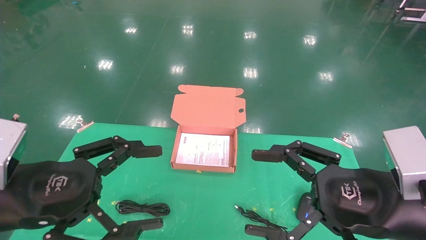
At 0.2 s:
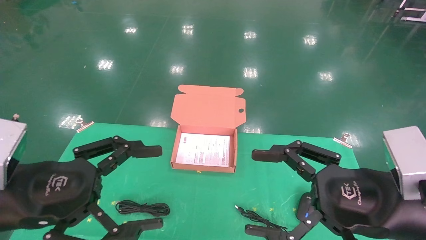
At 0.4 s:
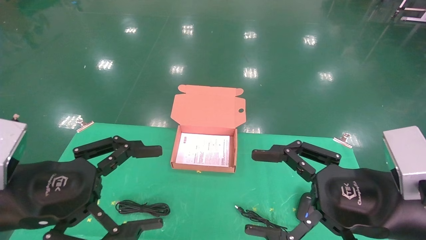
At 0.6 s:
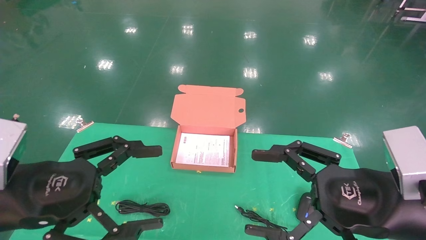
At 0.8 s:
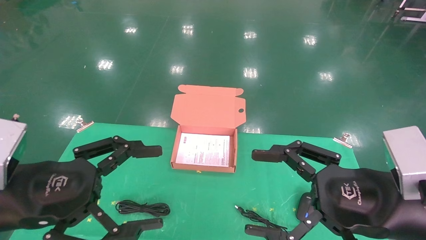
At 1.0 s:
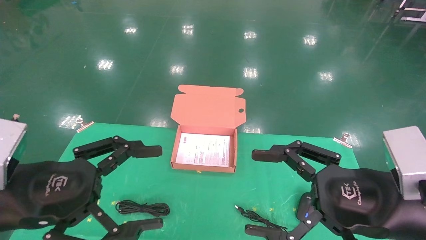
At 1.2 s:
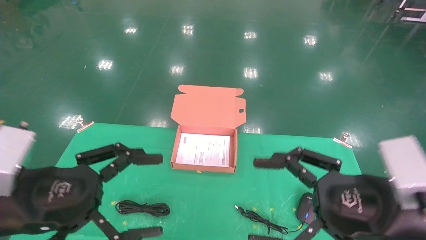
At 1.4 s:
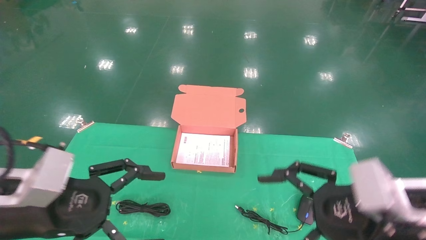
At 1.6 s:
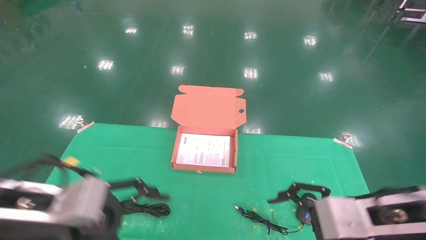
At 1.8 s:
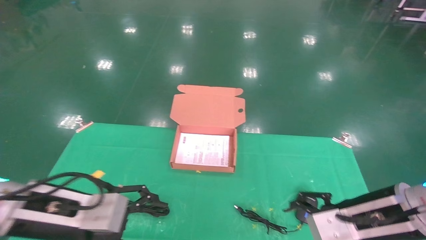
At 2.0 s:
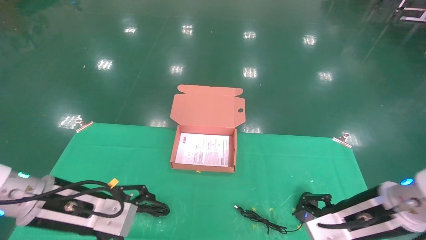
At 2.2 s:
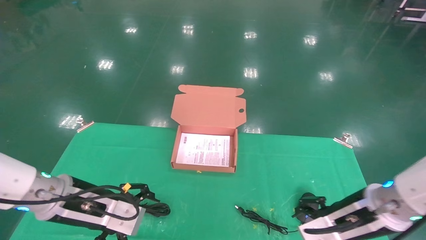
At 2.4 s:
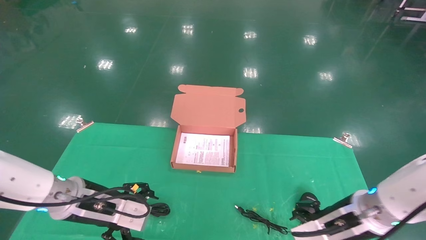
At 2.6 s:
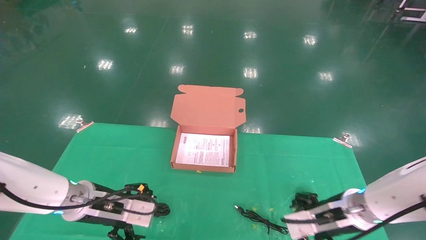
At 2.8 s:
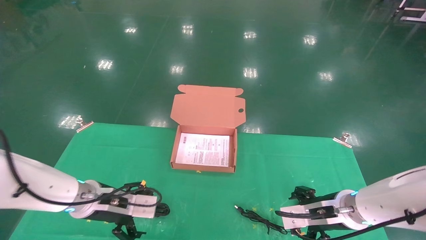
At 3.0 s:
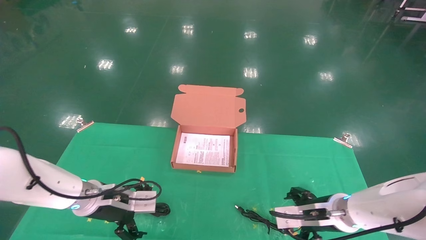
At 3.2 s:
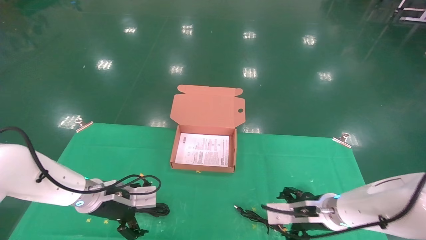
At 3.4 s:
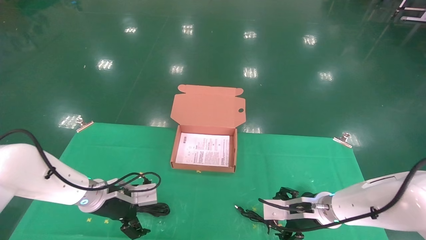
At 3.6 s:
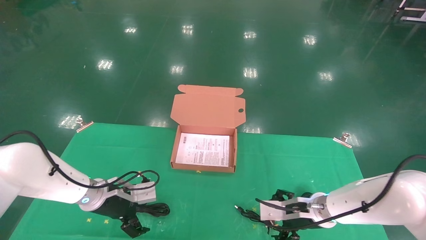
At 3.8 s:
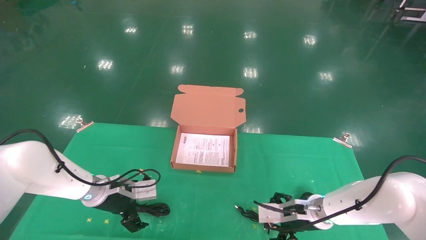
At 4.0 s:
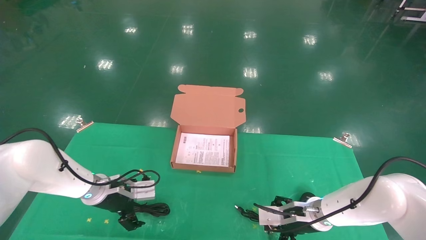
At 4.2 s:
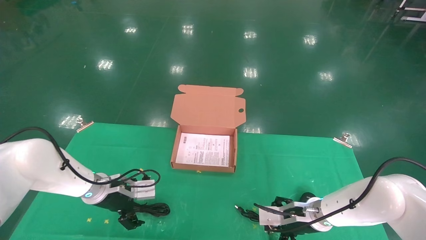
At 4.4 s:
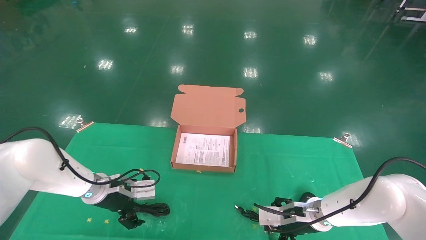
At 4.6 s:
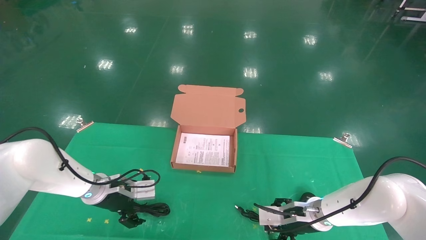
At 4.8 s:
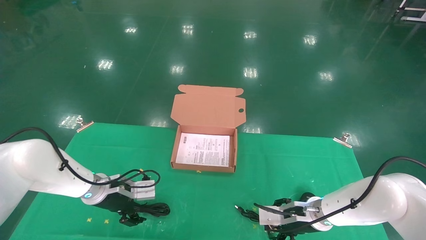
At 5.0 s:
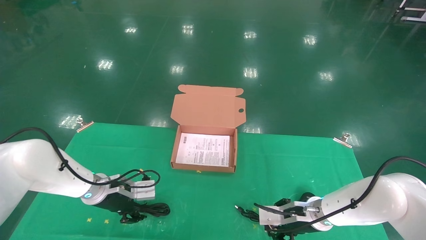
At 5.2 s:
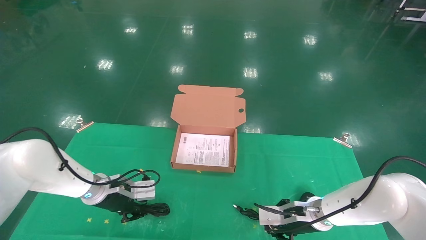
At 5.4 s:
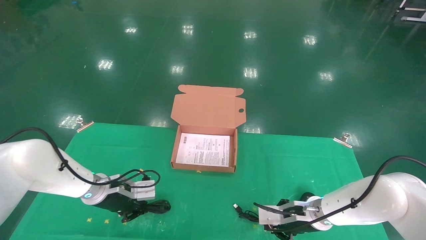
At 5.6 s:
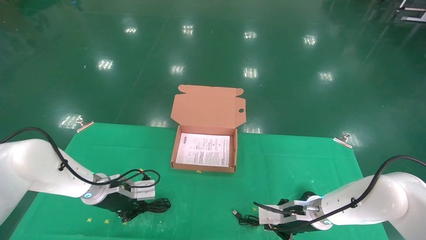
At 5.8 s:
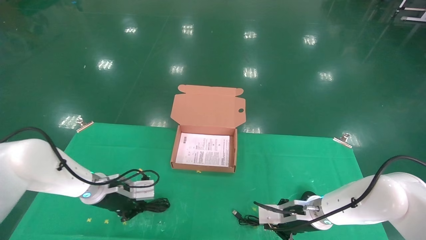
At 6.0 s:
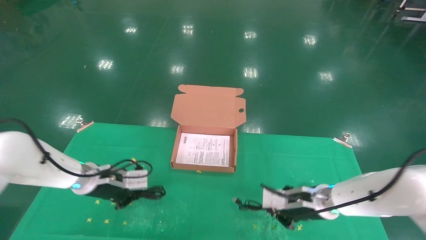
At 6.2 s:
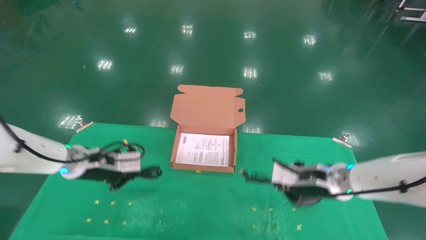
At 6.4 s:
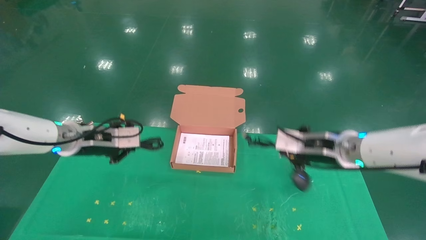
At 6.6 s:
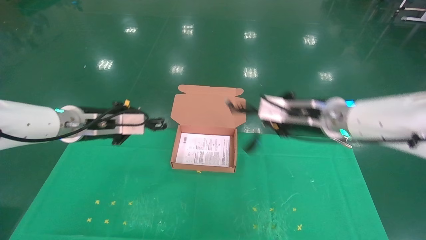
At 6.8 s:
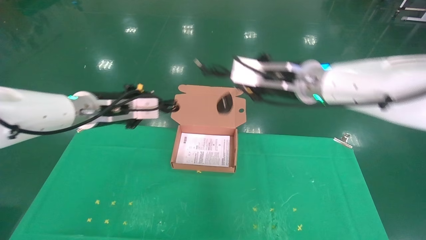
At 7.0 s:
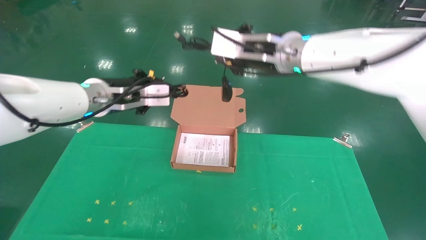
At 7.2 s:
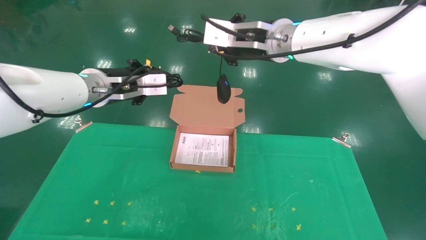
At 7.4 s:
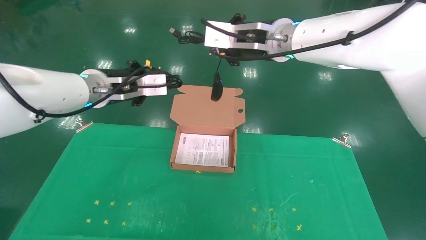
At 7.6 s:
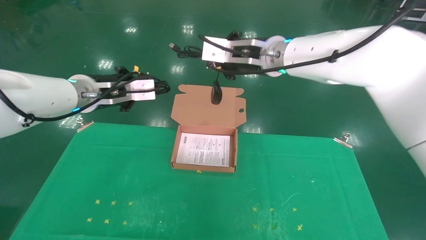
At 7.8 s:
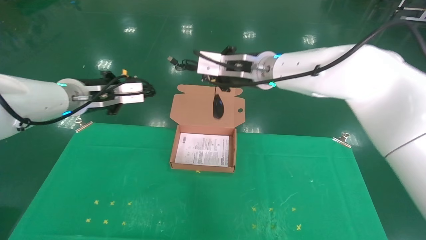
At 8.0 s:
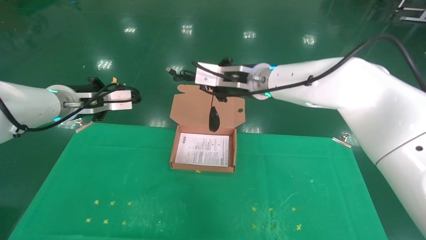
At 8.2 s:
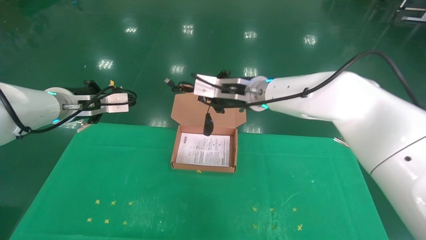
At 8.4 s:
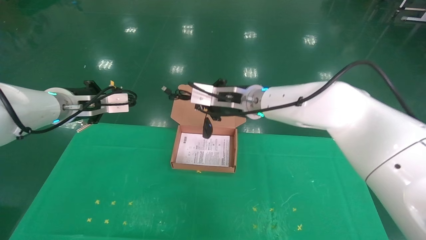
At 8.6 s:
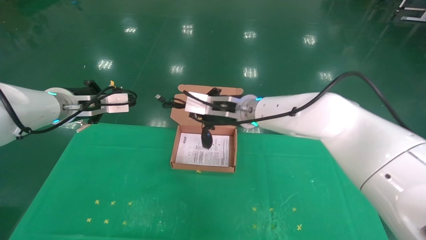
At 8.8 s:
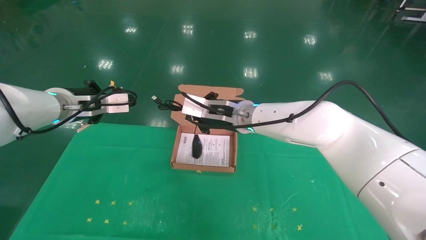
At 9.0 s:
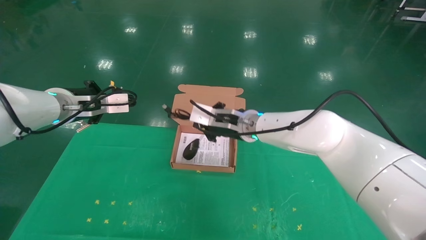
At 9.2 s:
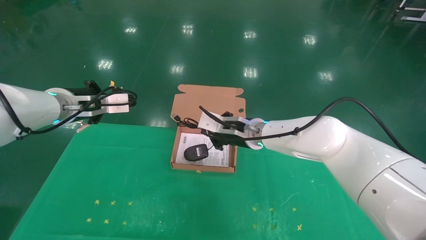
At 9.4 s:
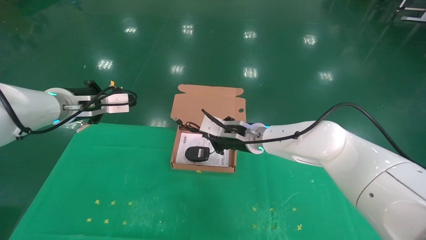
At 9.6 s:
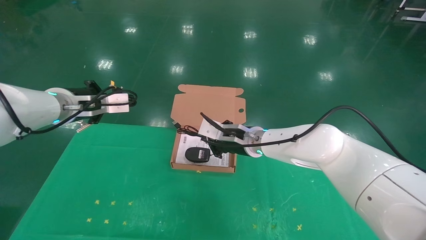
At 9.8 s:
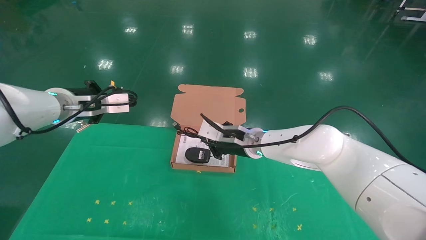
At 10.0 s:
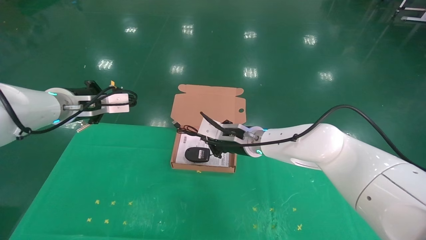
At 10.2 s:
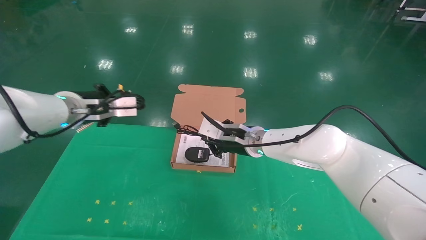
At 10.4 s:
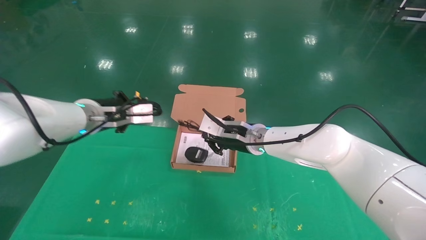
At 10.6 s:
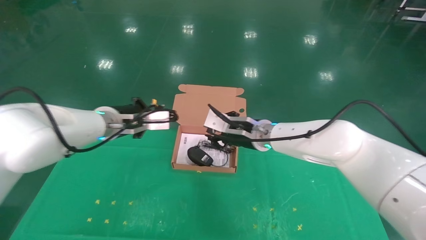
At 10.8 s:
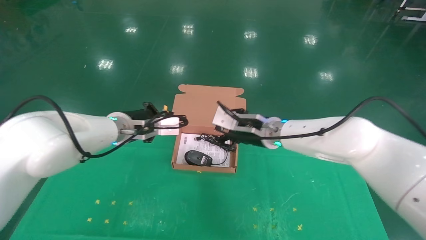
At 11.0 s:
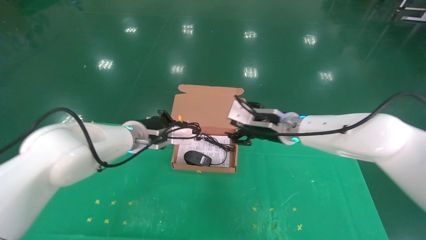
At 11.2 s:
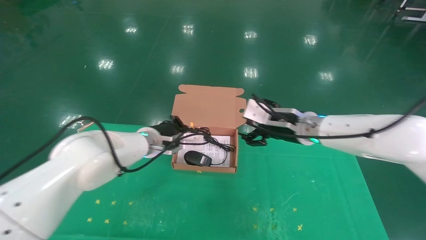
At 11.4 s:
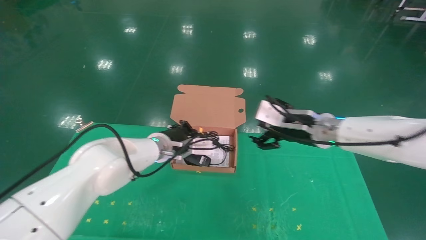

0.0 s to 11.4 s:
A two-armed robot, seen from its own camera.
Task of the whole recording: grasp data cable left put into box grasp mouse right put into box.
Step, 1.4 to 5.6 s: Grab and pick up both the mouse and power cord from the accessory packaging area at the same time.
1.4 to 2.8 s: Both grippers move forward and downward, approximately 15 cm.
2.8 to 4.2 s: The left gripper moves forward, roughly 10 cm. The right gripper heads downward and forward, covering some 10 cm.
4.2 to 5.6 s: The right gripper closes its fingers. Meanwhile the left gripper closes its fingers.
5.6 to 7.2 s: The right gripper travels upward by roughly 35 cm. Meanwhile the left gripper moves upward, about 25 cm.
7.2 to 8.6 s: The right gripper heads downward, covering some 15 cm. The left gripper shifts some 10 cm to the left.
8.6 to 10.0 s: The right gripper shifts roughly 10 cm downward.
10.0 to 11.4 s: The right gripper moves to the right and backward, roughly 15 cm, and opens its fingers. The left gripper shifts about 20 cm to the right and downward.

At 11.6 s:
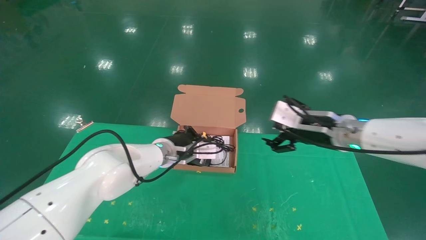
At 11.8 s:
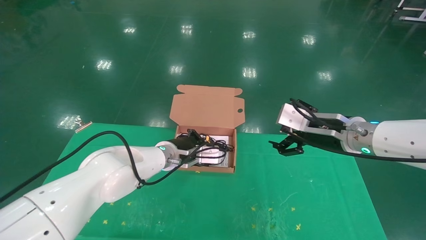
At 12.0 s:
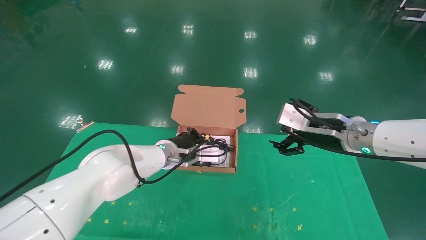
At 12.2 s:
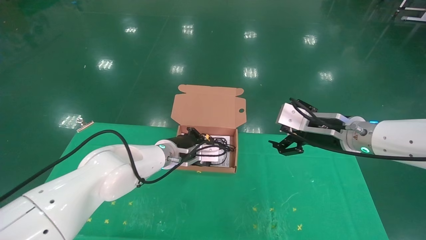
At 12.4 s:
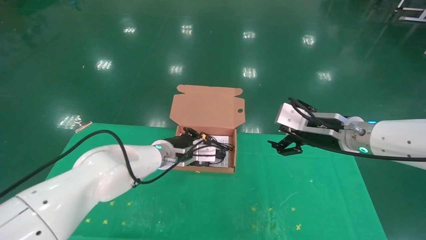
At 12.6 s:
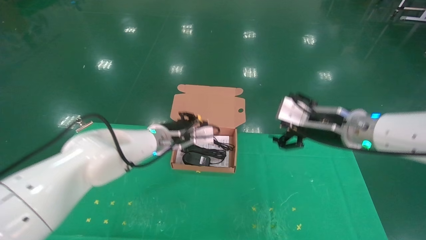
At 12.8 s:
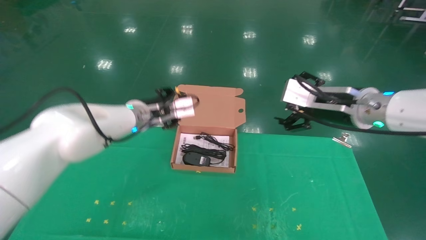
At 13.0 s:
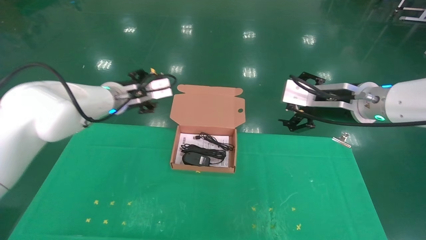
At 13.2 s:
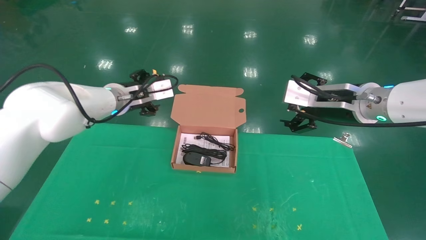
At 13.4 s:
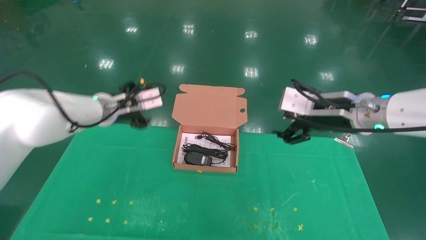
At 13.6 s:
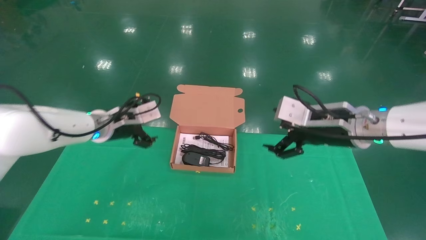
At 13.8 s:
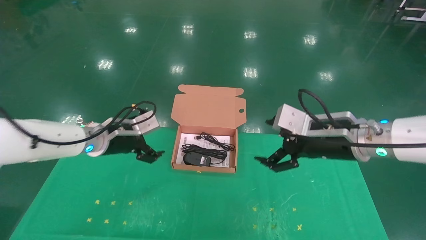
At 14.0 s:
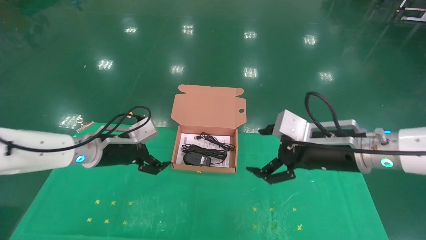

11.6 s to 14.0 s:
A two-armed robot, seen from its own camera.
Task of the whole recording: grasp data cable left put into box grasp mouse right put into box.
11.6 to 12.8 s: The left gripper moves upward and to the left, about 10 cm, and opens, while the right gripper moves upward, about 5 cm.
12.8 to 14.0 s: The left gripper heads to the left, backward and downward, covering approximately 10 cm, and opens, while the right gripper goes some 5 cm downward.

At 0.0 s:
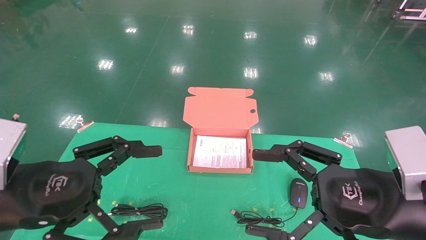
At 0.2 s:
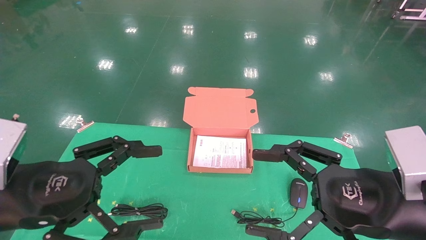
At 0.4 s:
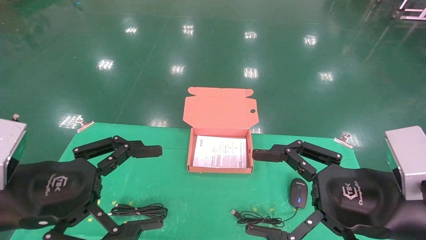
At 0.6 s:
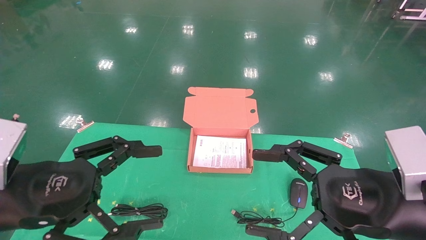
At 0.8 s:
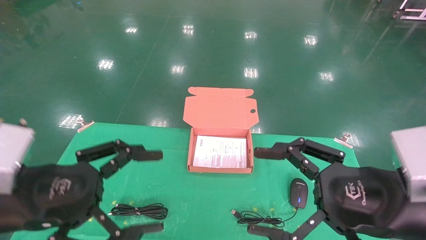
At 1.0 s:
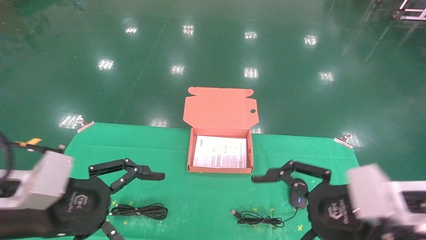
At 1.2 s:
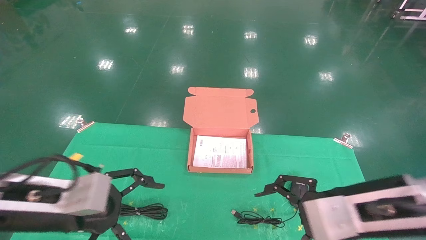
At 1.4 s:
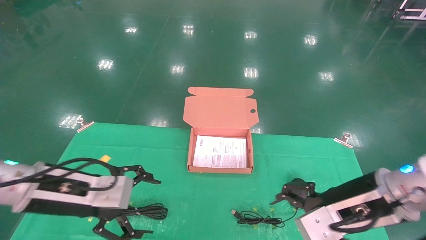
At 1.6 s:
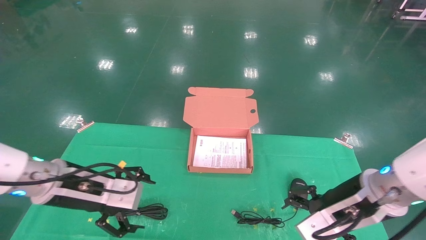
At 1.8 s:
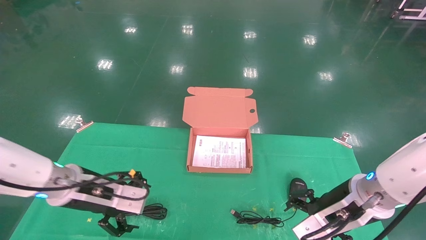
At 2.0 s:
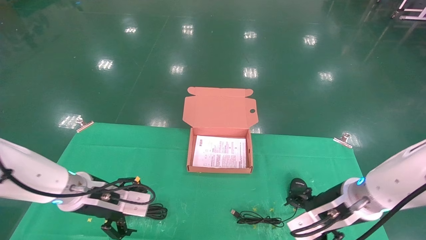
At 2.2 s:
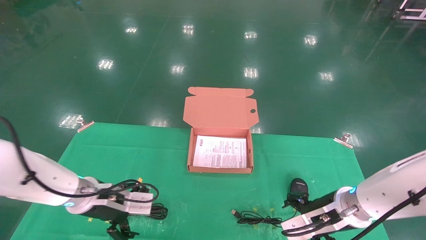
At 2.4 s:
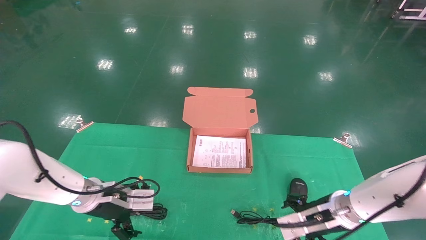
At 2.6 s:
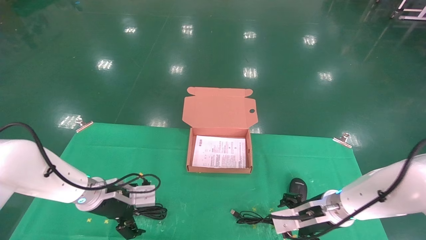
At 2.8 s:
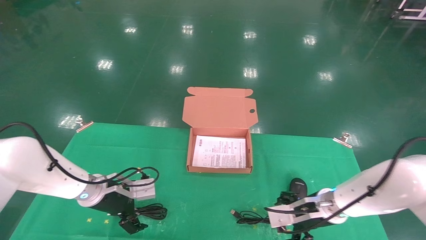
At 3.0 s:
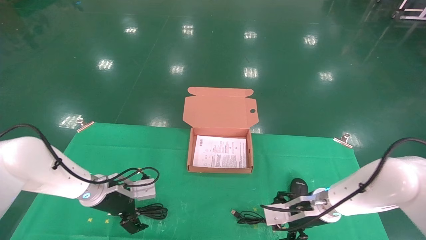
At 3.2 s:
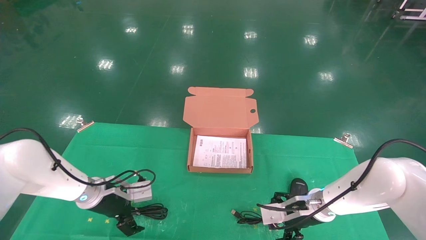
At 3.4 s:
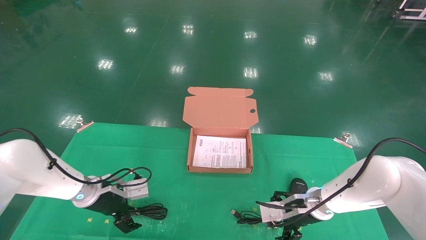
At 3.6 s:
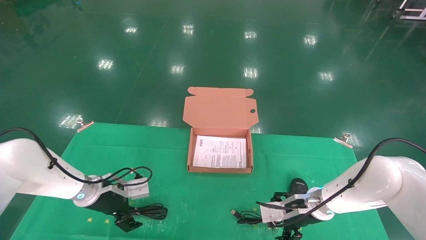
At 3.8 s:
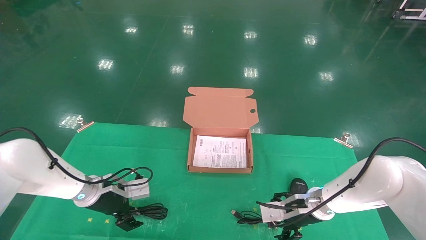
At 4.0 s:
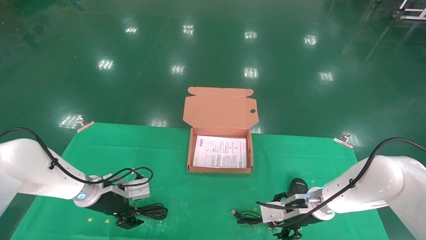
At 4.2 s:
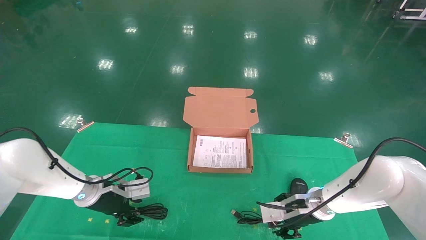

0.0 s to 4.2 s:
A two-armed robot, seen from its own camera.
Task of the whole recording: grasp data cable left put into box grasp mouse right put into box.
0.0 to 1.4 s: The two grippers go roughly 10 cm forward.
1.4 to 2.8 s: Both grippers move forward and downward, roughly 15 cm.
2.8 to 4.2 s: The left gripper closes up; the right gripper closes.
